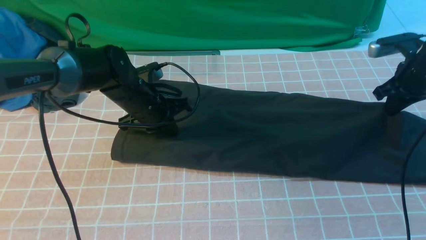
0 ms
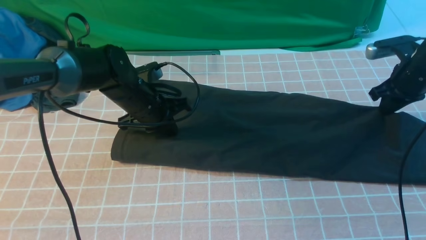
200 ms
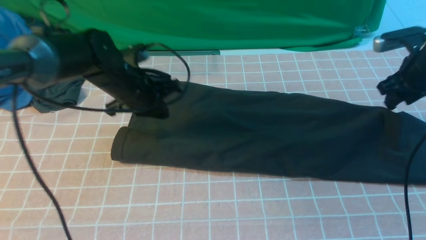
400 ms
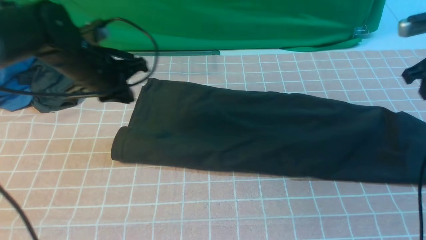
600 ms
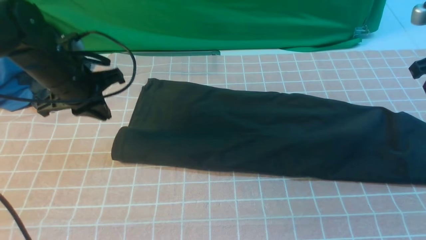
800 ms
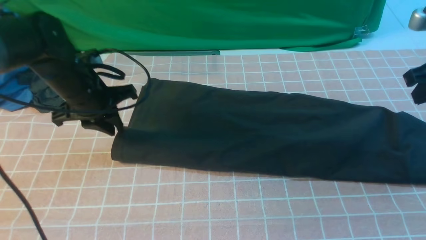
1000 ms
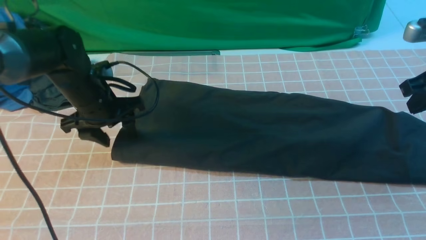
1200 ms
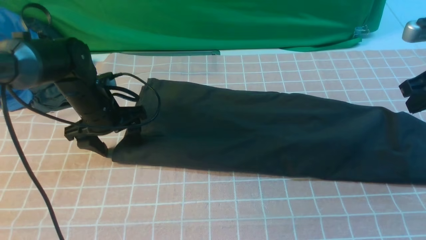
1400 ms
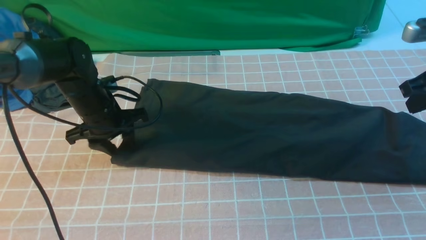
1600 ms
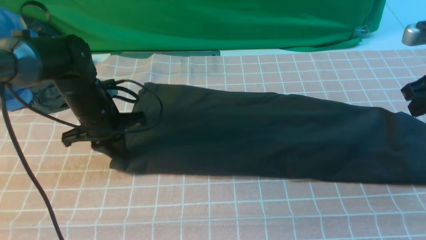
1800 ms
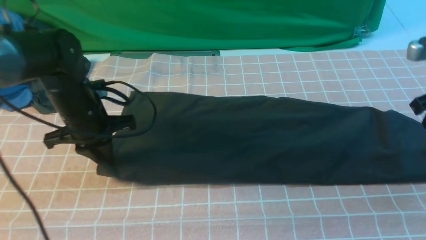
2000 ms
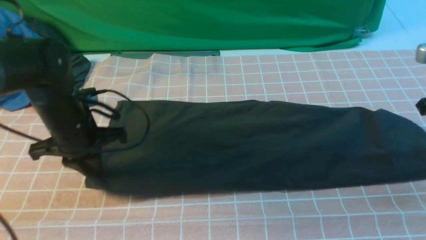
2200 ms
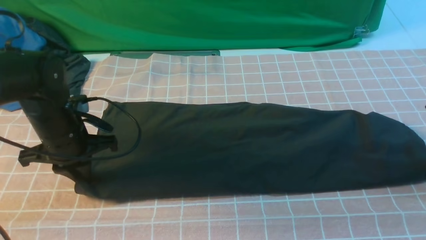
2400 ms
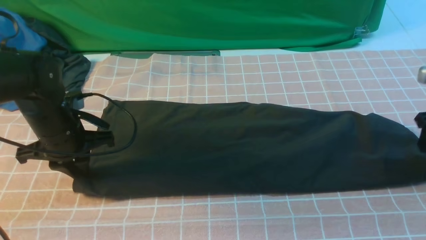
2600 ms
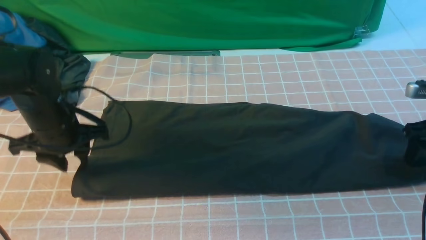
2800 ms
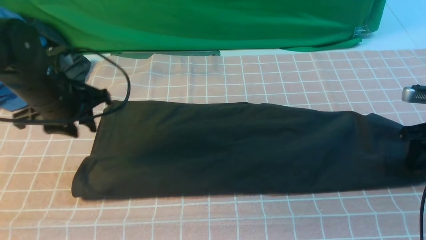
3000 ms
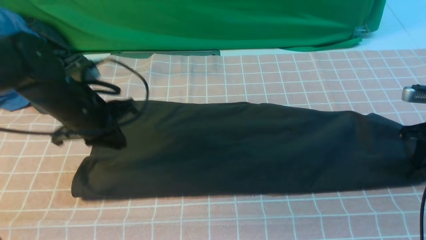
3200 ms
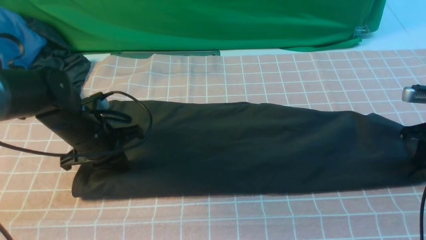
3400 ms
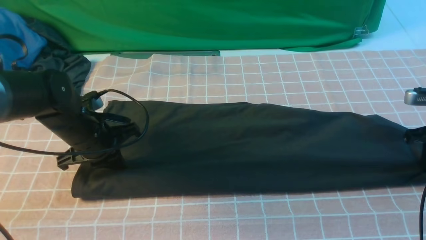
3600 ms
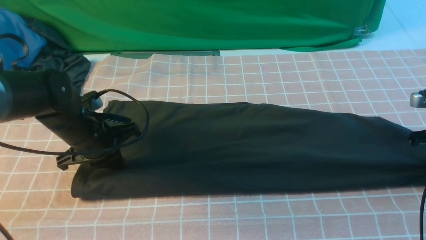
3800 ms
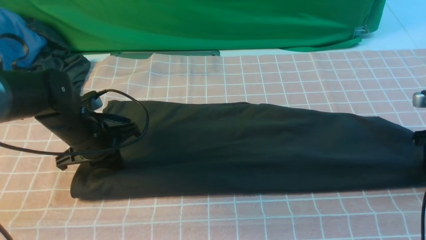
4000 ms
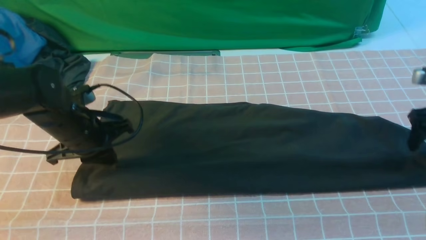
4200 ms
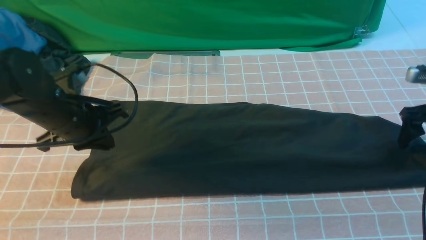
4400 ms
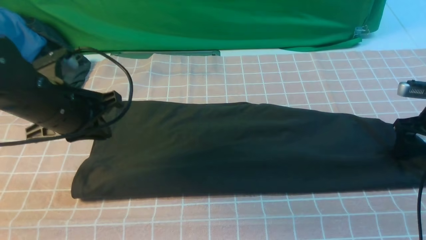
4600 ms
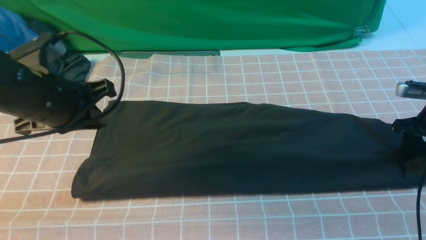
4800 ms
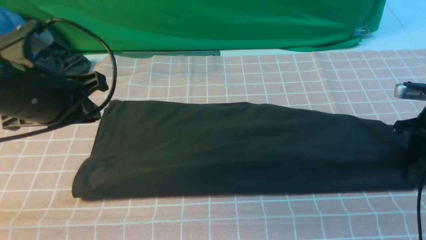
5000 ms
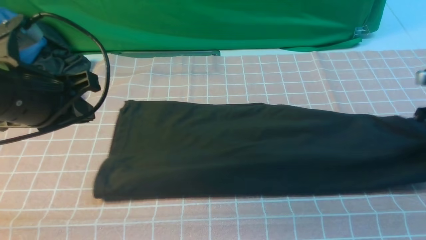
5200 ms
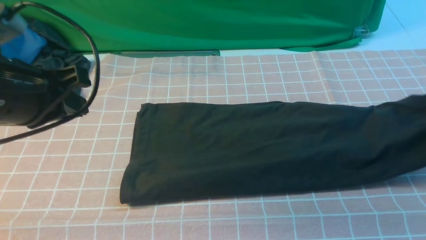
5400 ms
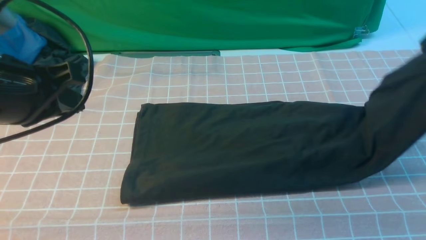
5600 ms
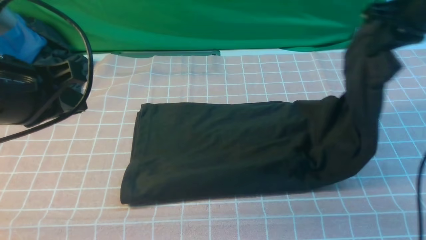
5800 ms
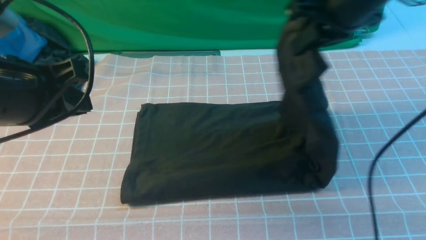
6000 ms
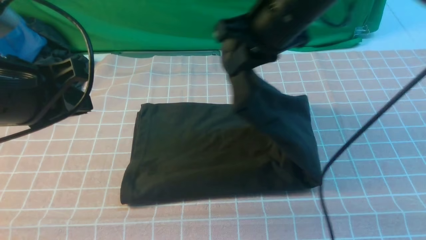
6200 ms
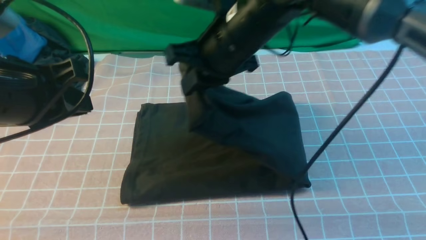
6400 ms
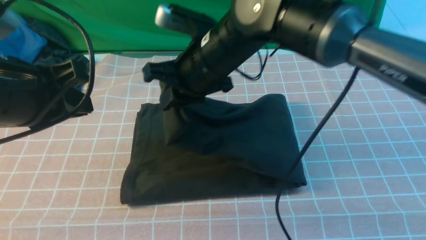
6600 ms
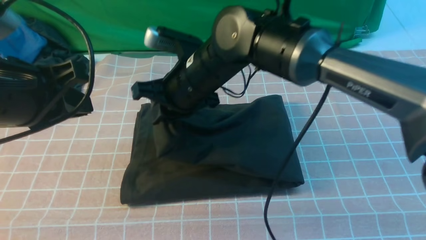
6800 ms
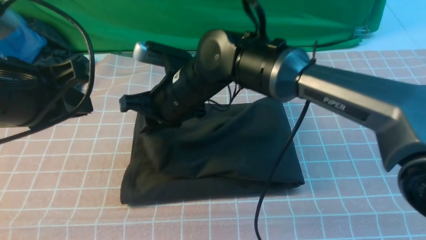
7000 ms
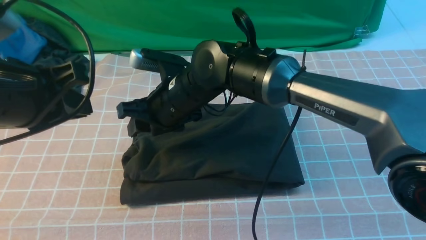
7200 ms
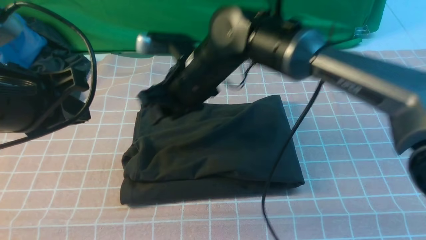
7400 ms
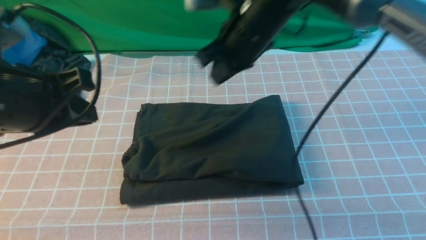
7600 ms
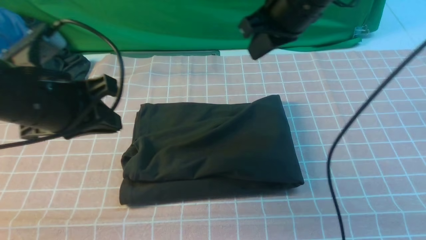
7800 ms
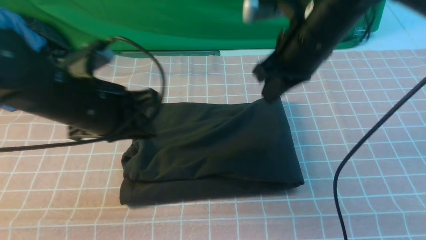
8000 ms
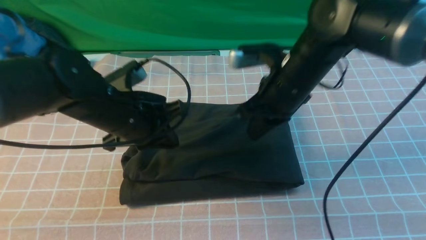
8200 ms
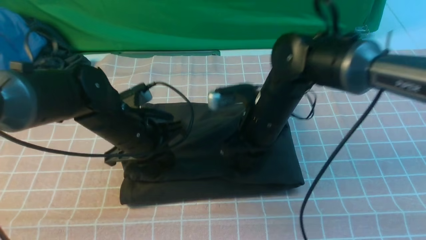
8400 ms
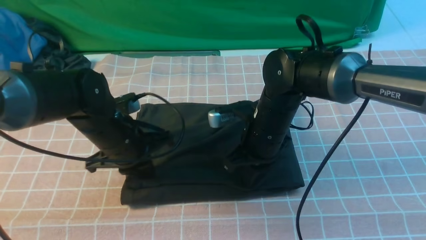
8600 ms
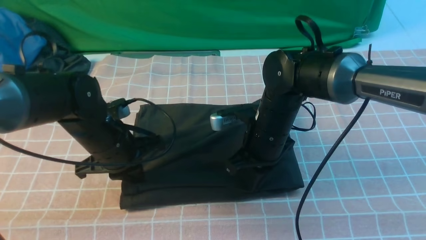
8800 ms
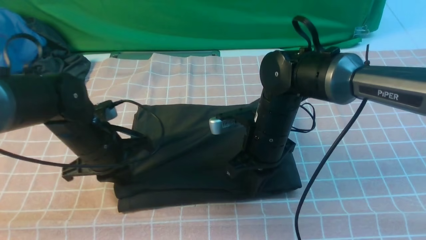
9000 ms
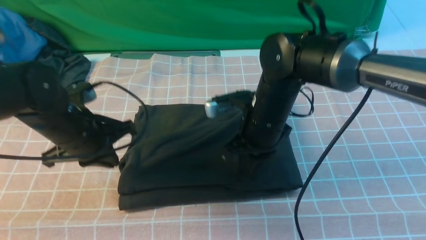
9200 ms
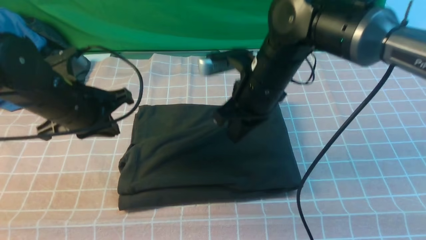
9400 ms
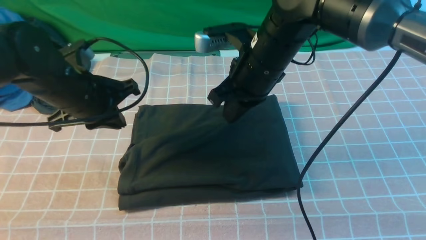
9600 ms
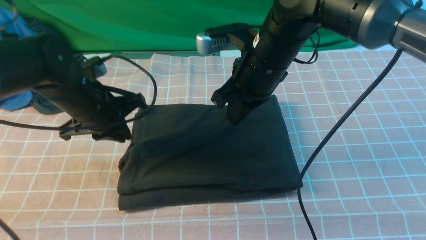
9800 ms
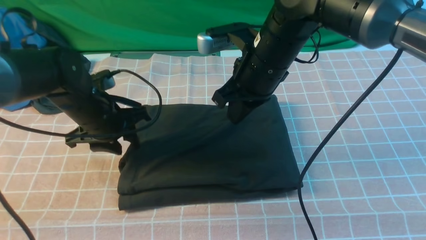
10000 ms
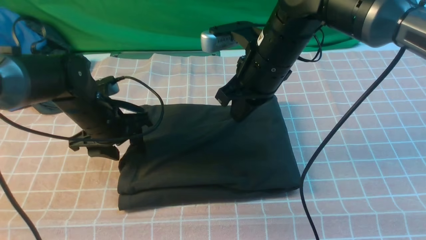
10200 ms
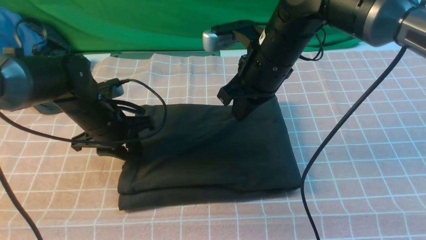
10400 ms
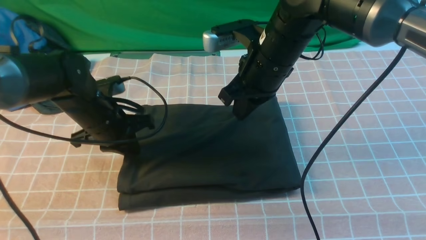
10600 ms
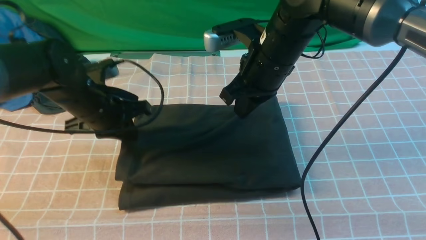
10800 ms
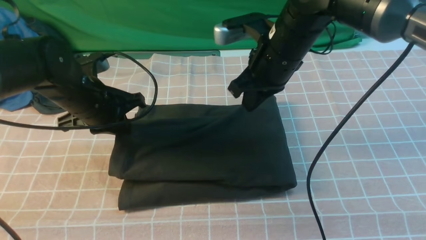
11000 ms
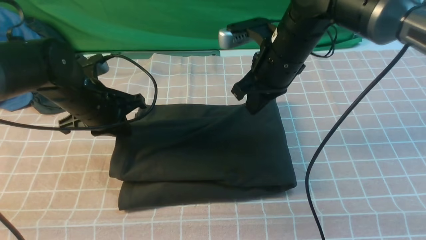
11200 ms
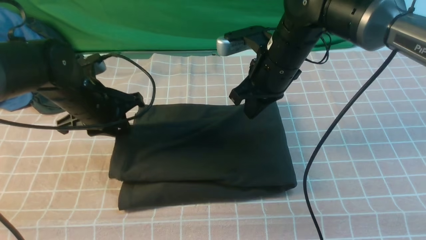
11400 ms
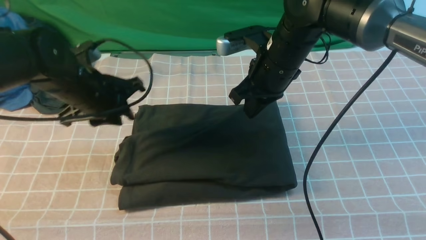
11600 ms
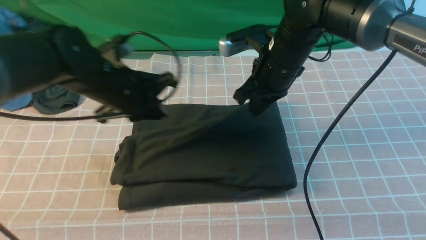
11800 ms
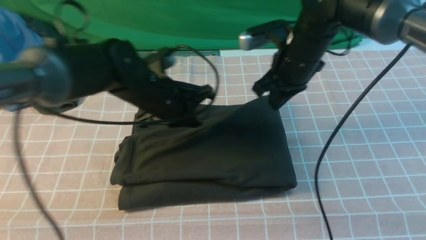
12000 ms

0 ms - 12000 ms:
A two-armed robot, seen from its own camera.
Step, 0 ms - 4800 ms: use the right arm to clamp the right edge of the fabric.
Step, 5000 ms - 7200 ms: use the right arm to drag the right edge of the fabric to the left and folds it over the left edge.
0 ms - 1600 ms: The left gripper shifts approximately 5 cm to the left, and opens; the right gripper is displaced backward and upward by roughly 10 cm.
1600 ms - 3000 ms: The right gripper moves downward and to the right, about 10 cm, and opens up. Meanwhile the left gripper moves upward, roughly 5 cm.
3000 ms - 4400 ms: The right gripper opens up, while the left gripper closes up.
4400 ms - 6000 ms: The right gripper heads to the left and upward, covering about 30 cm, and closes; the left gripper moves upward and backward, about 15 cm.
6000 ms - 7600 ms: The right gripper heads to the left, covering about 10 cm, and opens, then closes once more.
7600 ms - 9000 ms: The right gripper goes about 15 cm downward; the left gripper goes approximately 15 cm downward and forward.
9000 ms - 10400 ms: The left gripper moves approximately 5 cm, and opens; the right gripper is displaced upward by some 10 cm.
10400 ms - 12000 ms: The left gripper goes about 10 cm to the right, and closes up; the right gripper is displaced to the right by about 5 cm.

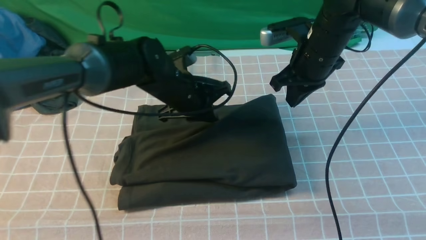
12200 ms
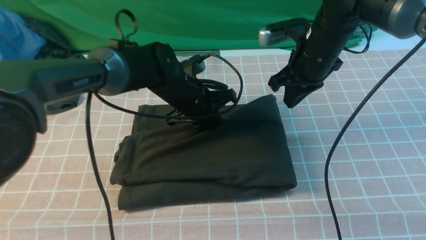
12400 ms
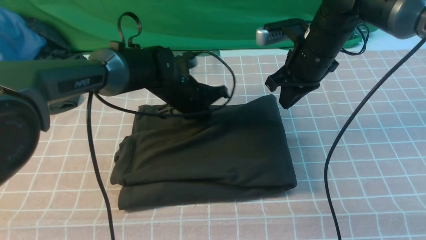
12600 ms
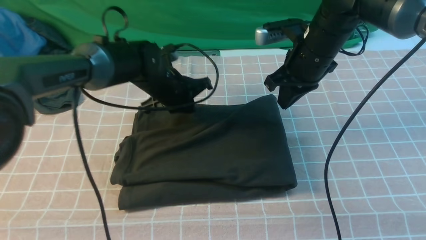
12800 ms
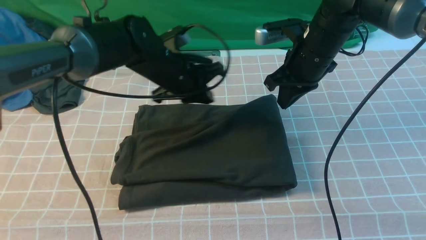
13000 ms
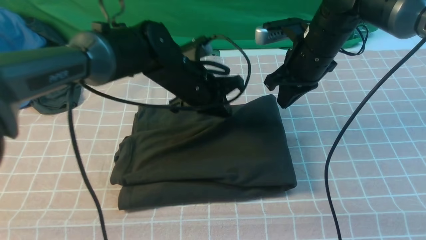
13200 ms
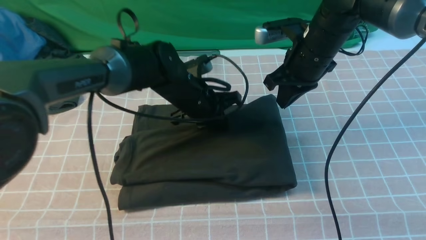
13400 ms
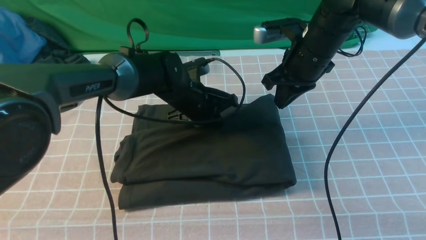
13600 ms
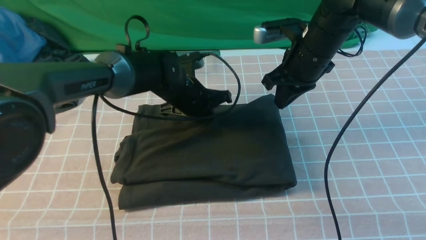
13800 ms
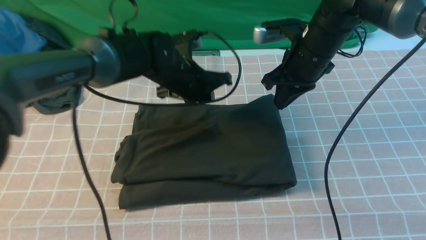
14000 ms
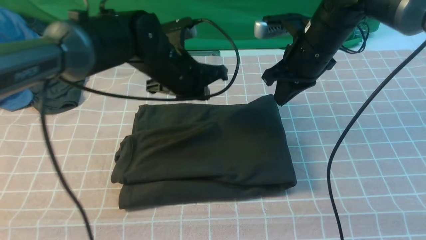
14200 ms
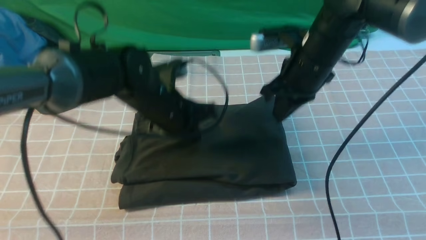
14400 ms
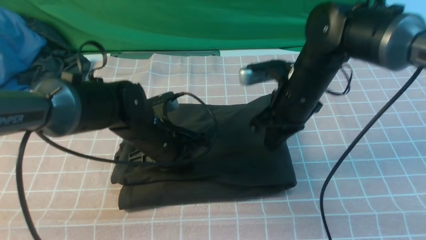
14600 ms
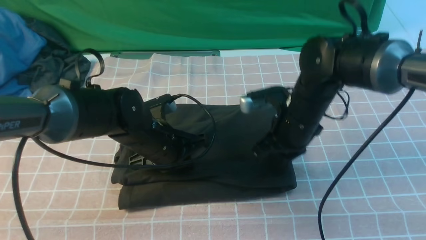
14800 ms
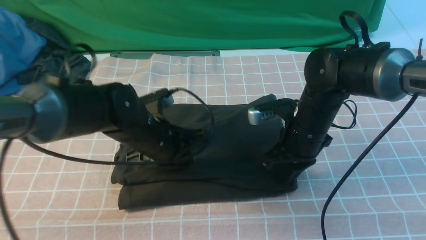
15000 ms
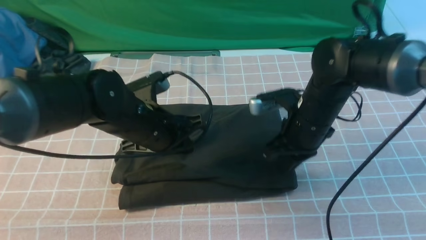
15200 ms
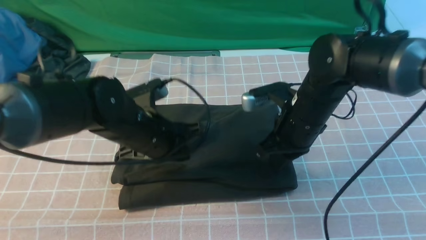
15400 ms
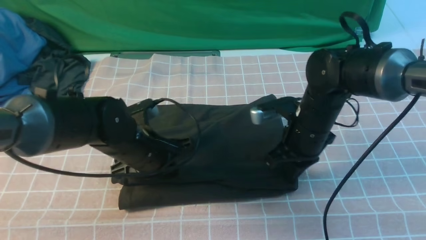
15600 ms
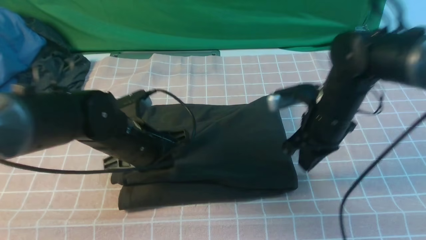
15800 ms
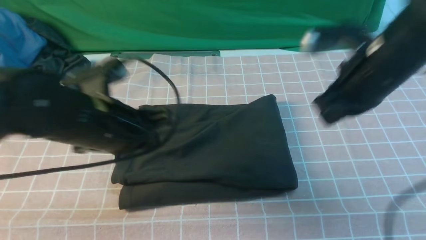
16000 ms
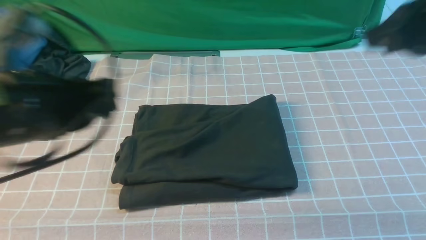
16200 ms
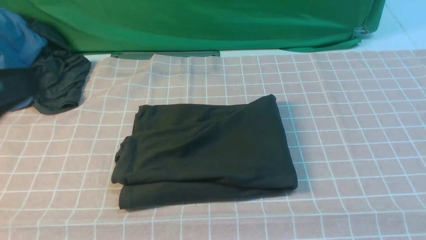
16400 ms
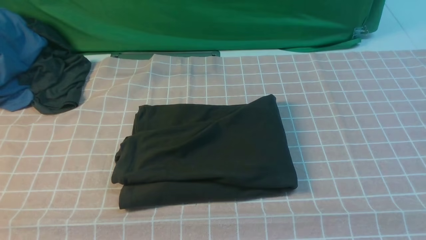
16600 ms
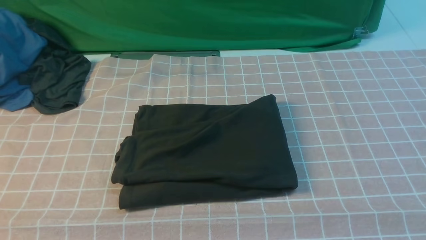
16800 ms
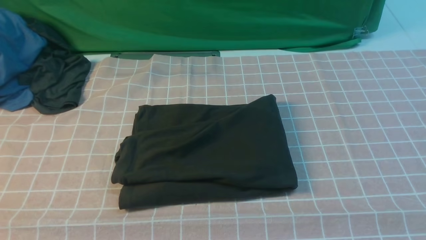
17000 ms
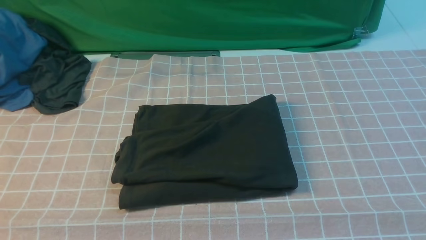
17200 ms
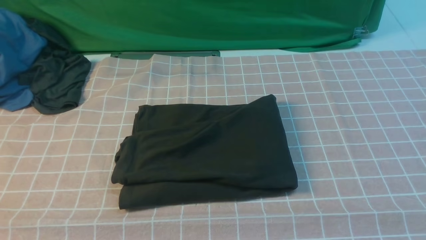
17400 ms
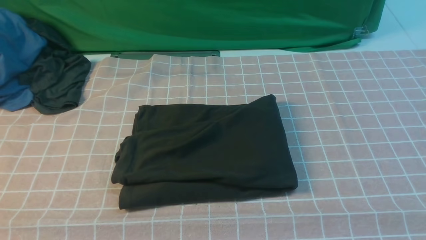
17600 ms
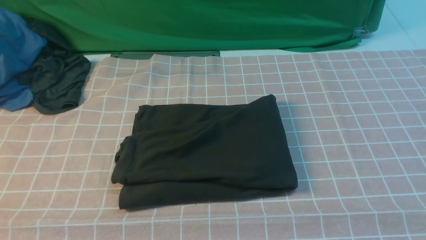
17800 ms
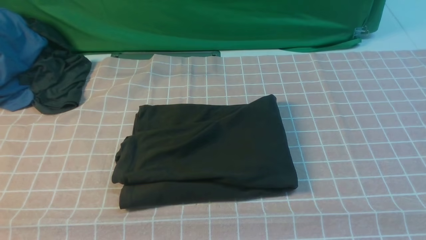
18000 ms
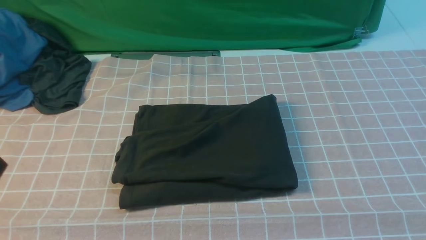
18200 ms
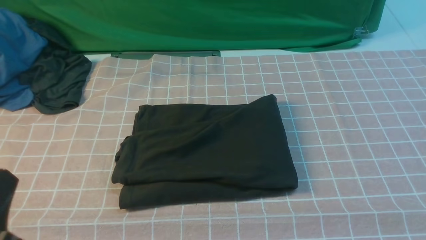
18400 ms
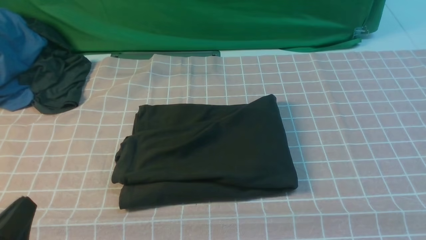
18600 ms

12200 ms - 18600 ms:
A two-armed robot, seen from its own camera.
12200 ms - 13800 ms: The grippers stay close to where they were, moving slightly.
13800 ms - 15400 ms: The left gripper goes roughly 10 cm backward. The right gripper heads backward and downward, covering some 10 cm.
15400 ms - 17000 ms: The right gripper goes approximately 40 cm backward, upward and to the right, while the left gripper goes approximately 35 cm backward, upward and to the left.
17000 ms - 18600 ms: The left gripper moves downward, some 15 cm.
